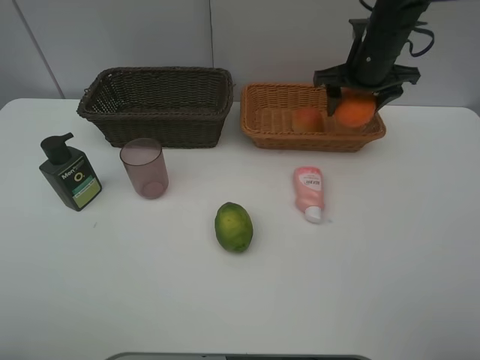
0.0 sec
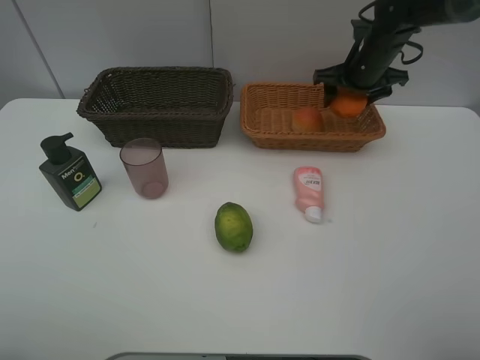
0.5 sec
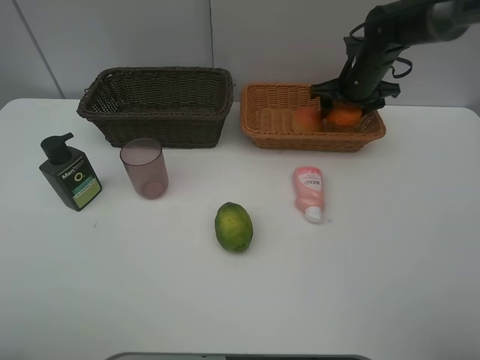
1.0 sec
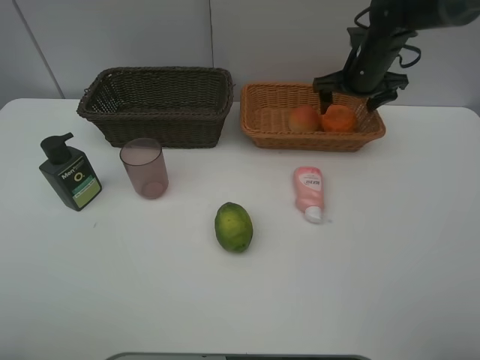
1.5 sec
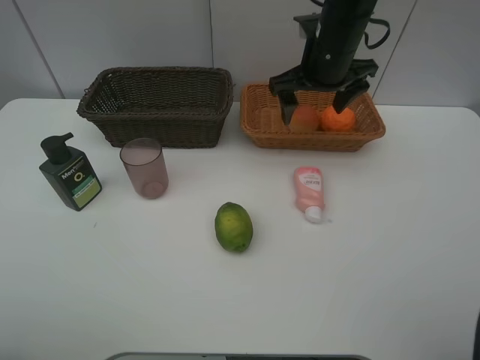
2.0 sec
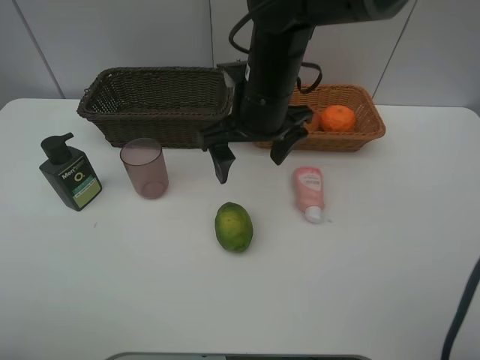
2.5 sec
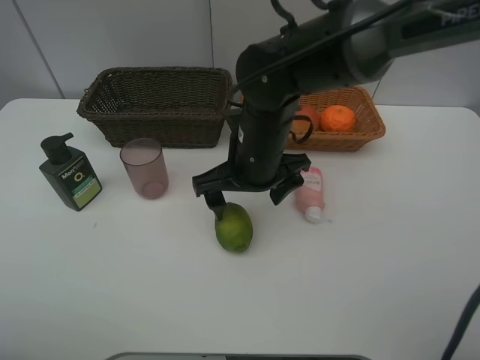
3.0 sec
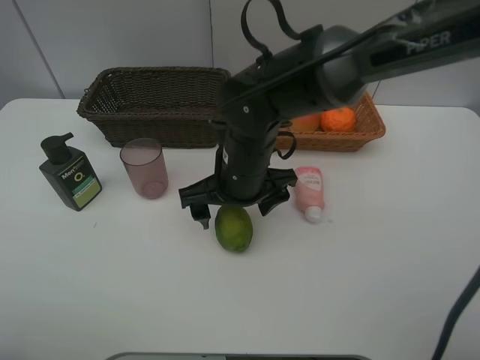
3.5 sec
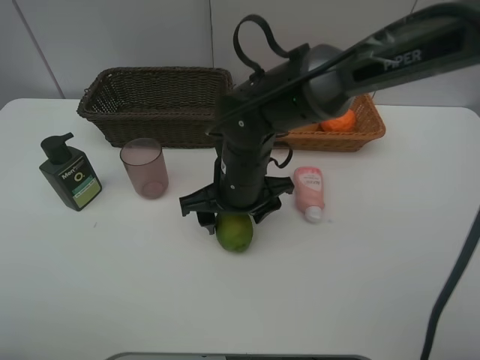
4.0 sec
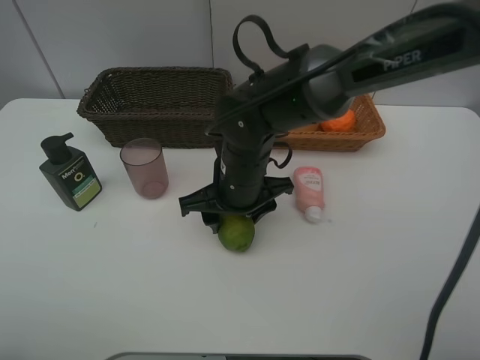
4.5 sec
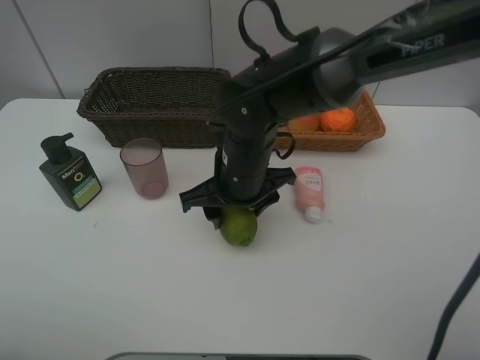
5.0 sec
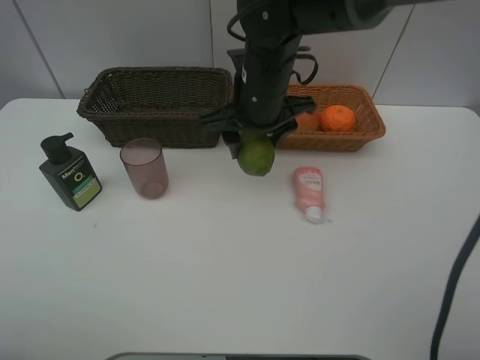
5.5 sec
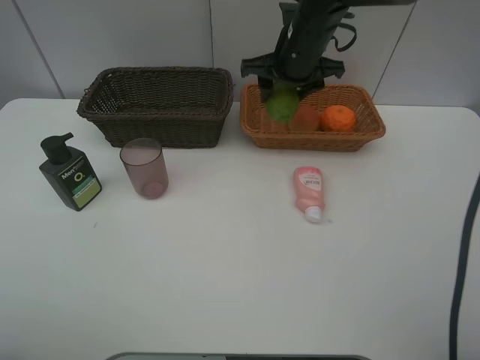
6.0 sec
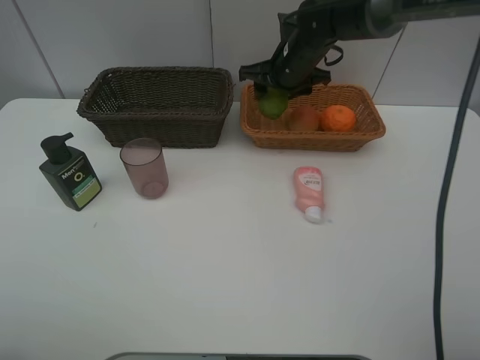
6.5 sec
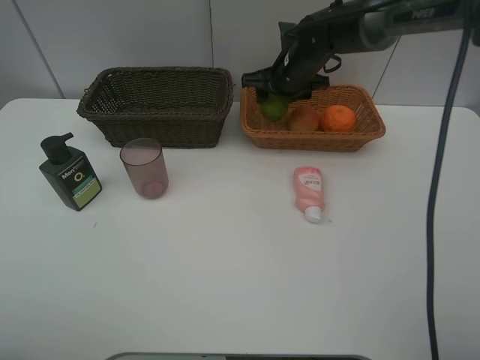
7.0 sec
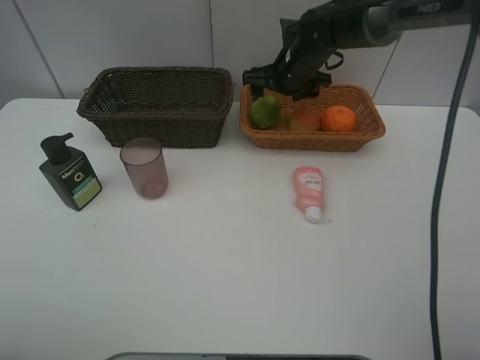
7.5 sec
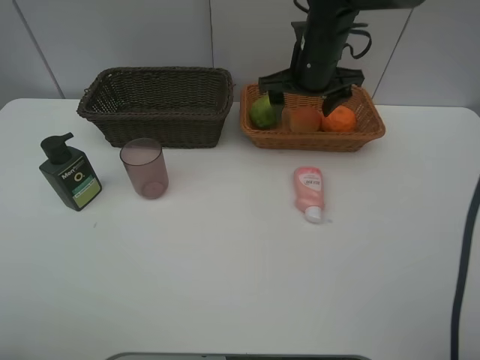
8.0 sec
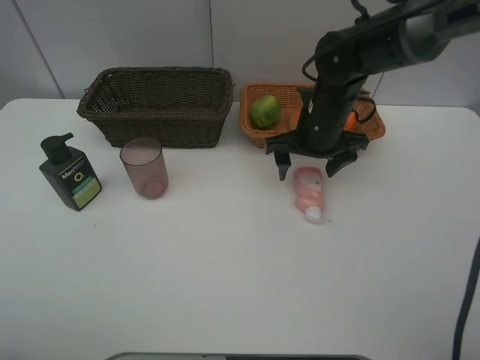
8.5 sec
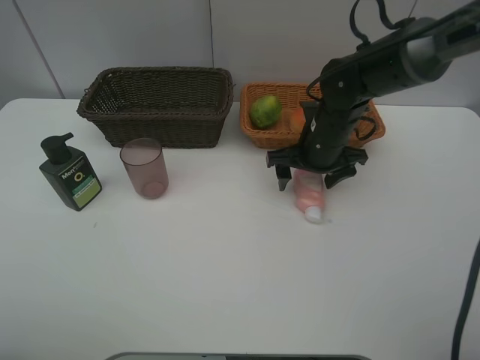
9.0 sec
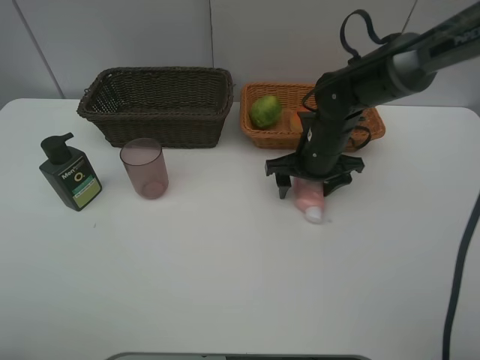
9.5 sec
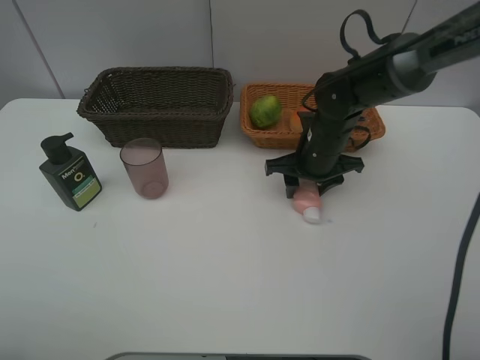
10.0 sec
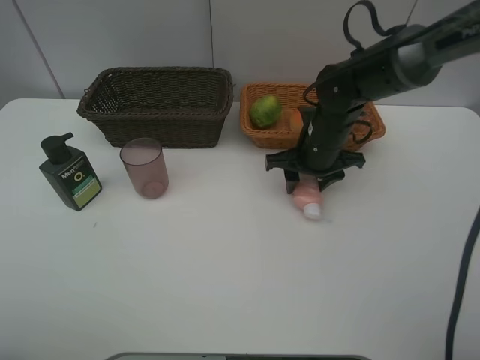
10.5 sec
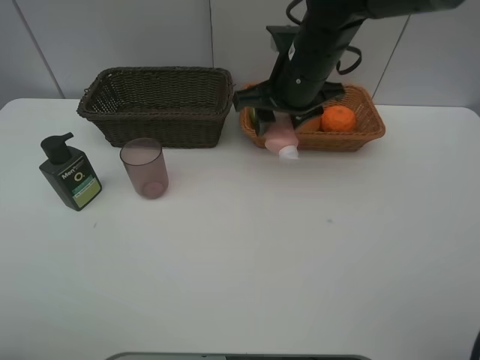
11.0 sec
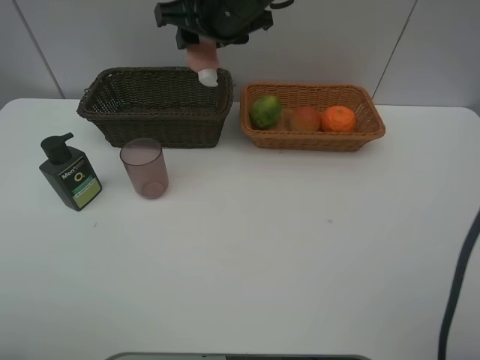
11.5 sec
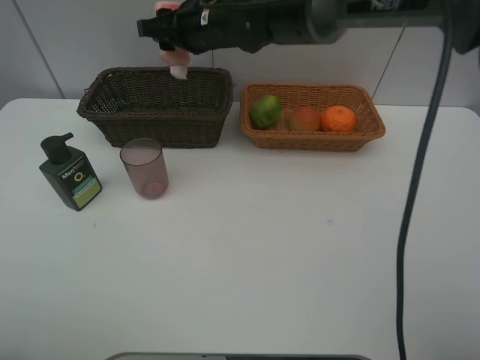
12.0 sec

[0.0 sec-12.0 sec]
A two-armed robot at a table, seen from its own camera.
Task of the whole recording: place multiple objects separately in different baskets.
0.0 sec to 2.0 sec: The right gripper moves to the left, approximately 10 cm, and opens up.
2.0 sec to 4.0 sec: The right gripper is displaced backward, downward and to the left by about 20 cm, and closes.
4.0 sec to 6.0 sec: The right gripper is displaced forward, upward and to the right by some 20 cm.
6.0 sec to 8.0 sec: The right gripper opens up.
8.0 sec to 10.0 sec: The right gripper heads downward and backward, covering approximately 10 cm, and closes.
10.0 sec to 12.0 sec: The right gripper travels to the left, upward and forward by approximately 20 cm.

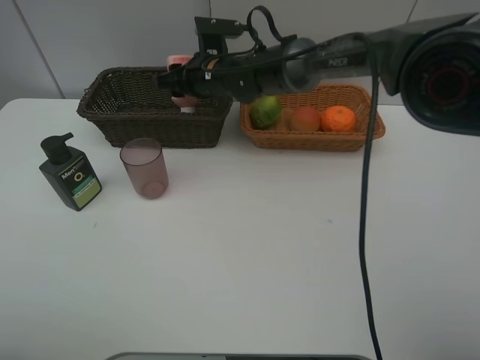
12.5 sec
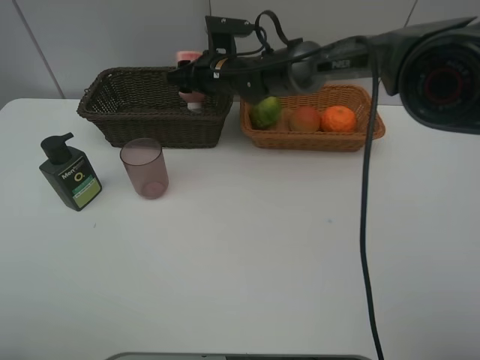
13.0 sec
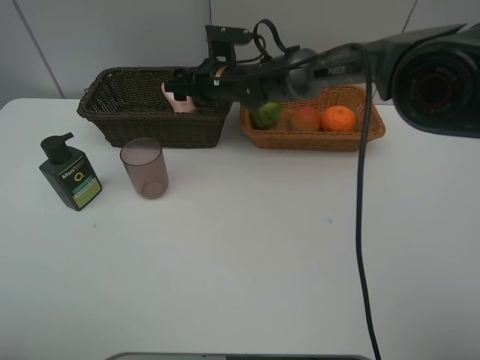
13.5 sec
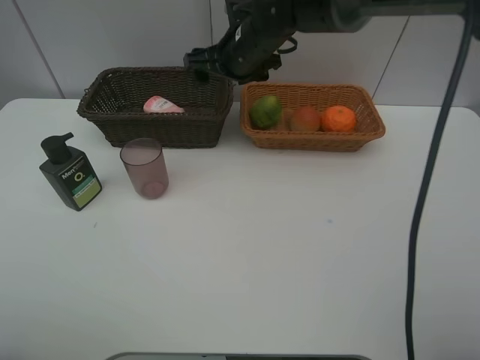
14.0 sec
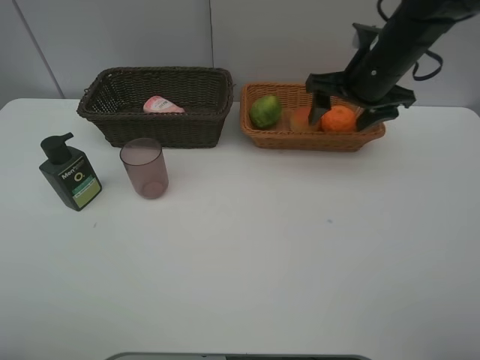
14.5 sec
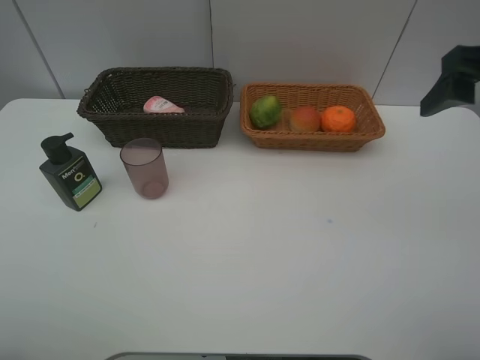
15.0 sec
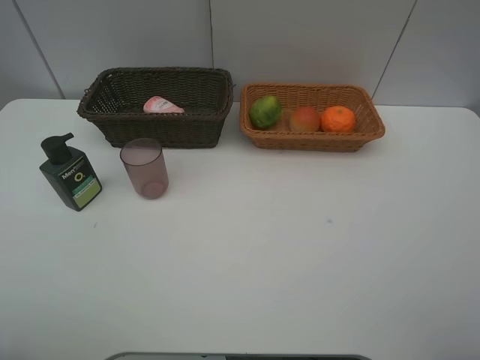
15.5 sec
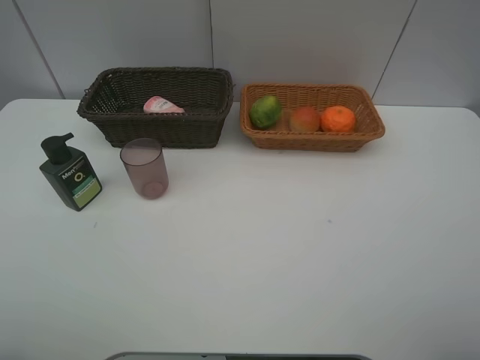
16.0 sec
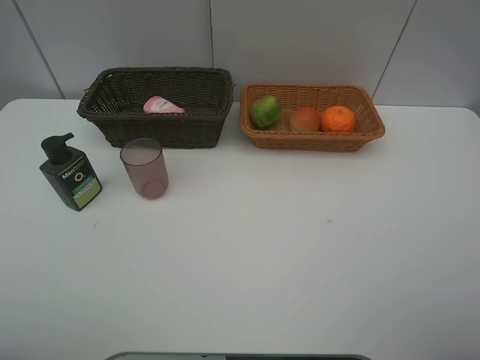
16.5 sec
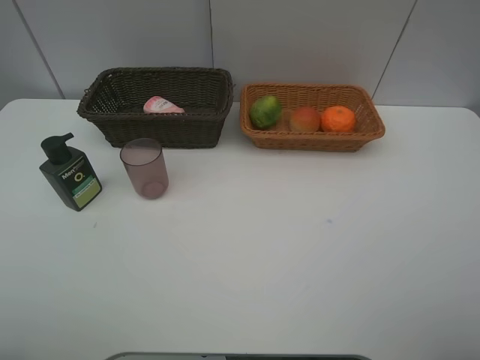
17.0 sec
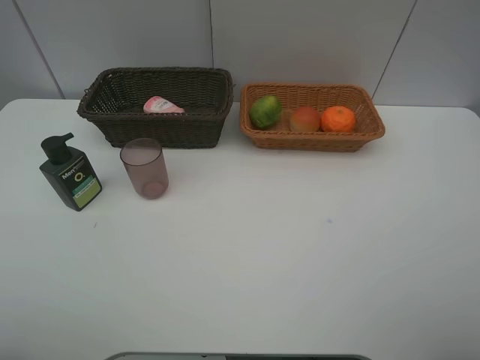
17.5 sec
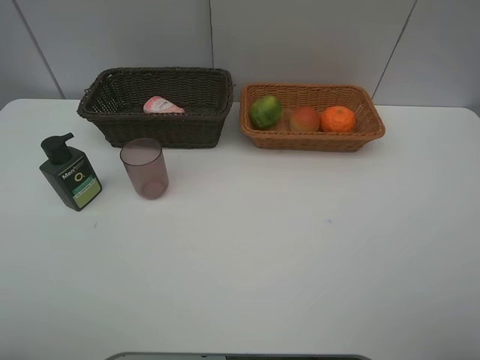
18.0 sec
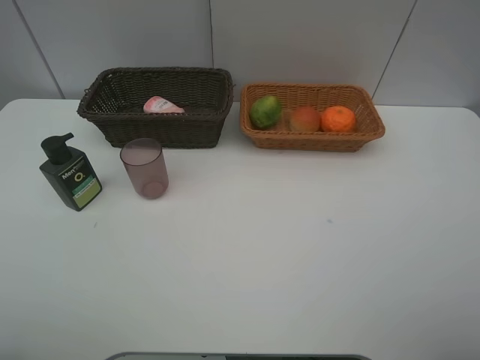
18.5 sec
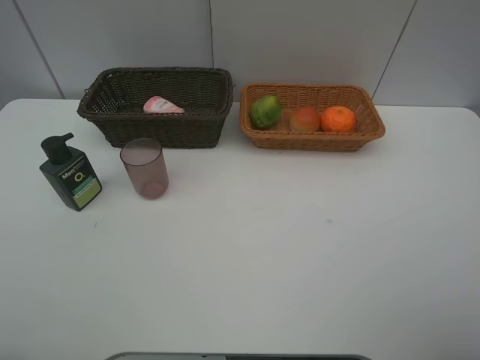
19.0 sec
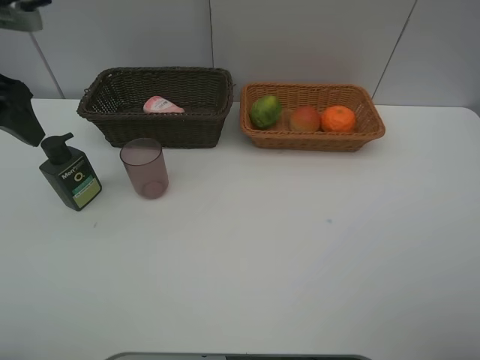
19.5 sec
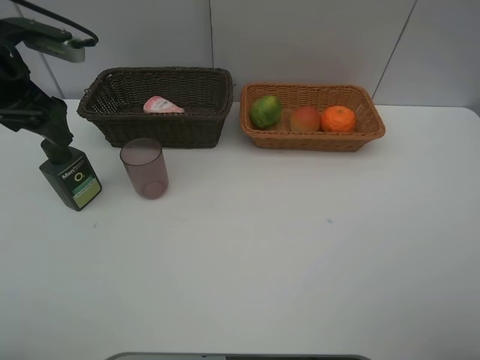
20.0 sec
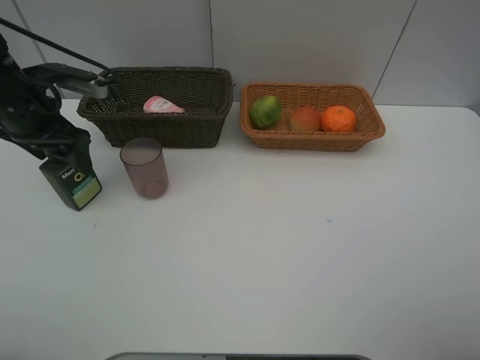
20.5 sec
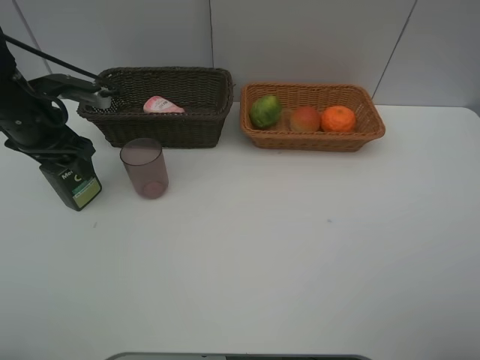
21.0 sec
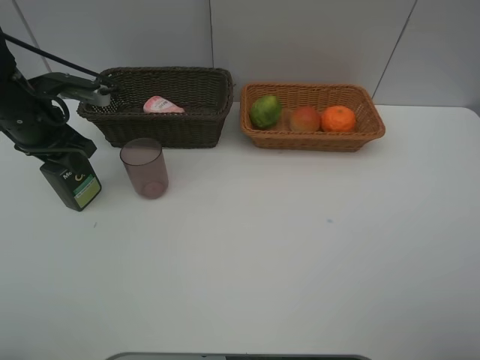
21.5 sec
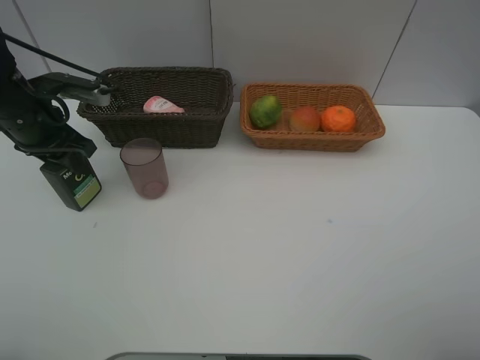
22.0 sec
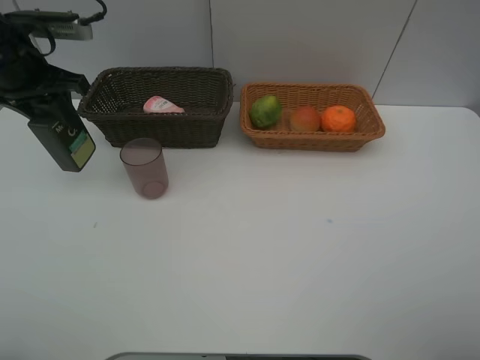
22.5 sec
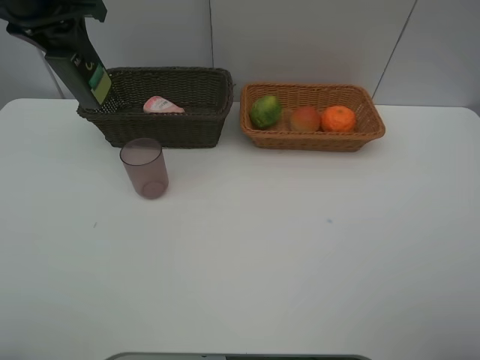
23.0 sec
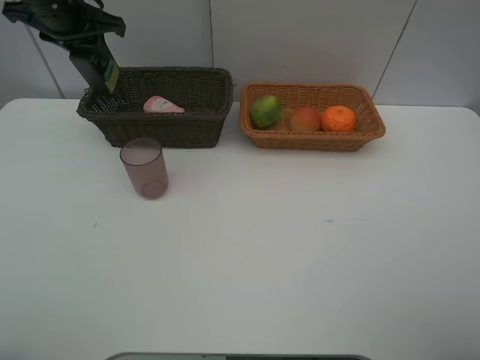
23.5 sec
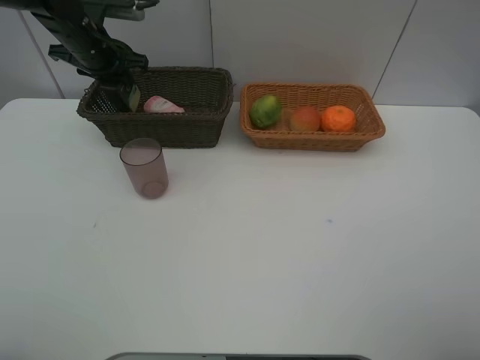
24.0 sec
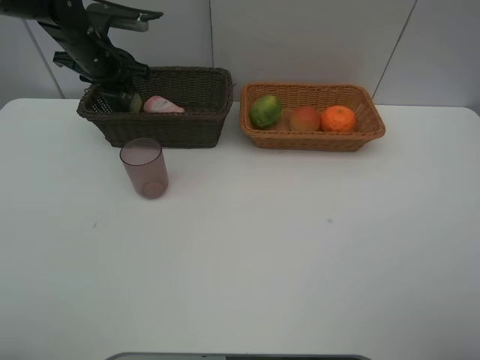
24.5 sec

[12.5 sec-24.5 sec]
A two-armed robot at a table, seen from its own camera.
Task of the whole recording: place multiple objects separately in different baskets.
12.5 sec to 14.5 sec: The right gripper goes roughly 25 cm to the right, and opens its fingers.
14.5 sec to 16.5 sec: The right gripper moves backward, approximately 35 cm.
18.5 sec to 20.5 sec: The left gripper travels forward by about 35 cm.
20.5 sec to 22.5 sec: The left gripper is displaced upward by approximately 5 cm, and closes its fingers.
22.5 sec to 24.5 sec: The left gripper goes roughly 15 cm forward and downward.

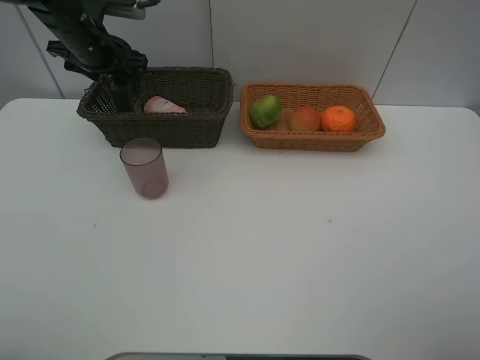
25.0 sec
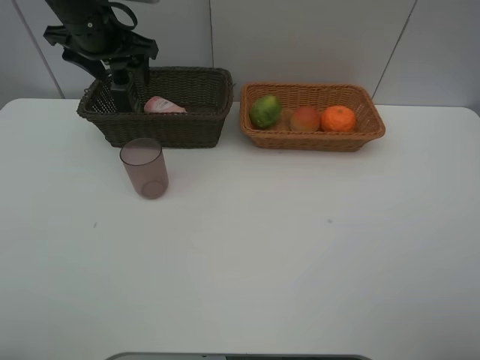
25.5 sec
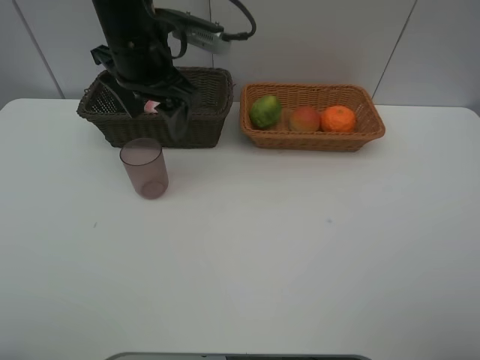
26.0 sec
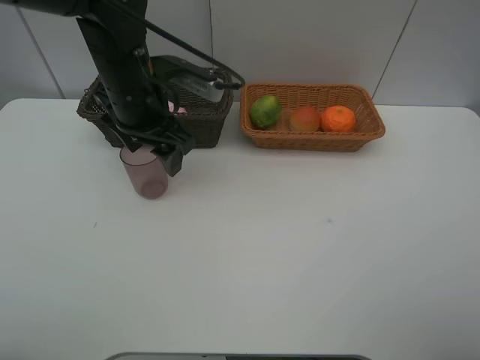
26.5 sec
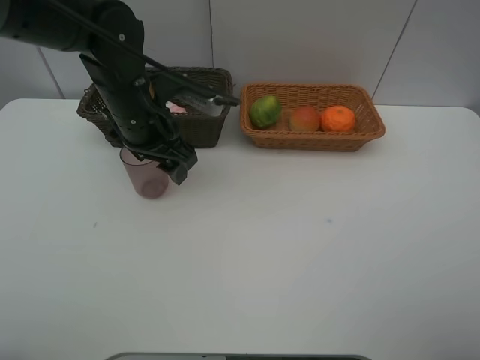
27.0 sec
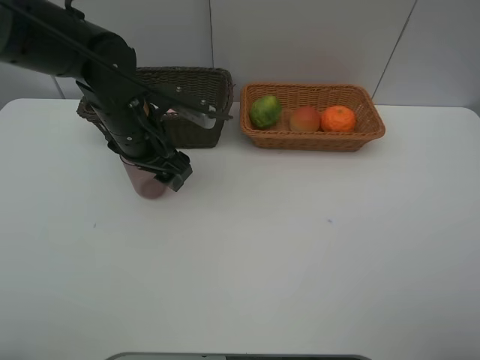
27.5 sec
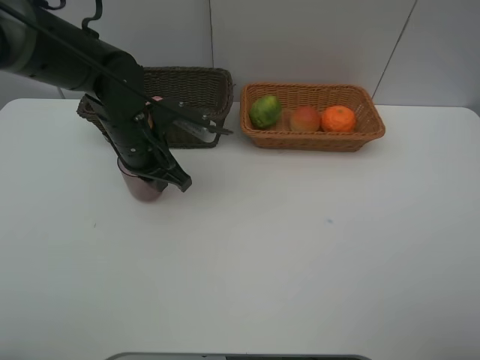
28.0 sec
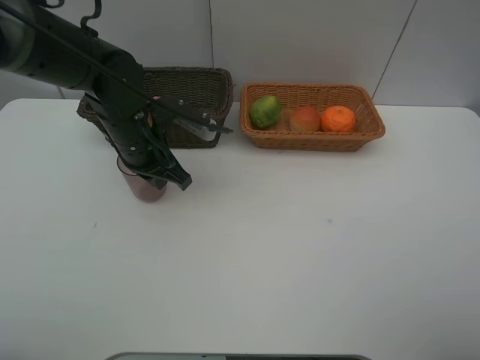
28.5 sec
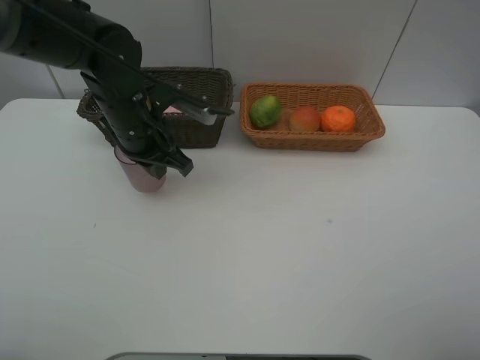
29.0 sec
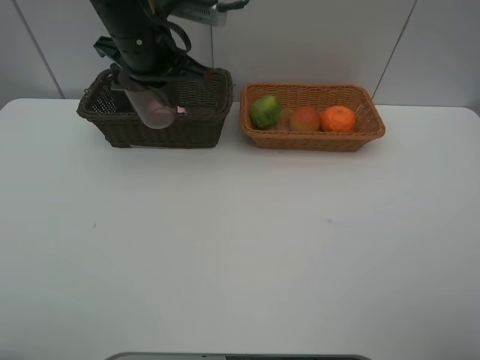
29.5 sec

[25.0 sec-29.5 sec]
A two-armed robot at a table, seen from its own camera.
Task of the whole recording: place multiple objects separately in different baskets.
25.0 sec to 27.0 sec: The left gripper is displaced backward and to the right by some 20 cm.
27.0 sec to 29.5 sec: The left gripper moves upward, approximately 10 cm, and closes its fingers.
